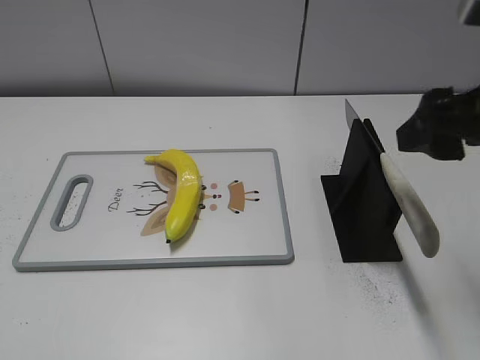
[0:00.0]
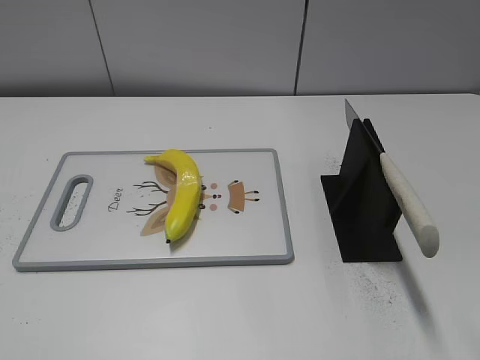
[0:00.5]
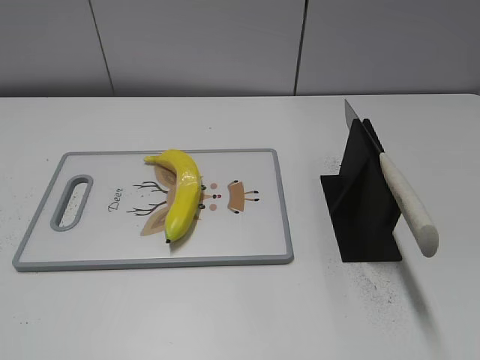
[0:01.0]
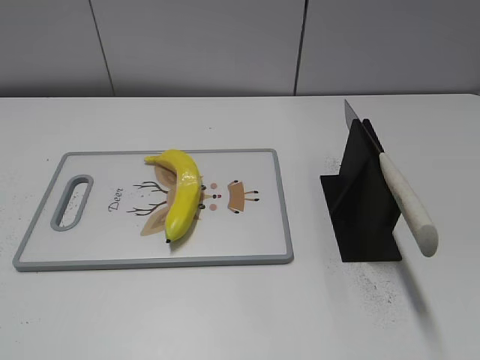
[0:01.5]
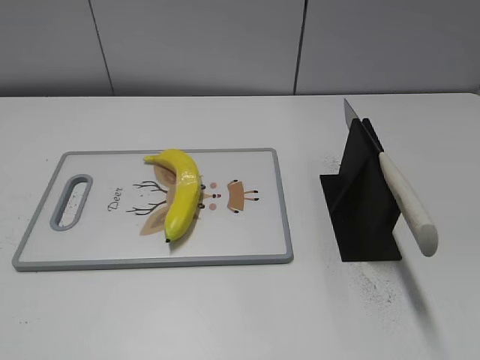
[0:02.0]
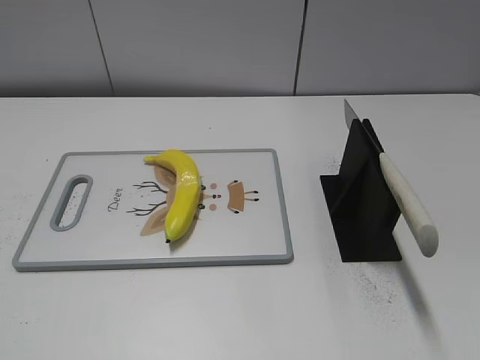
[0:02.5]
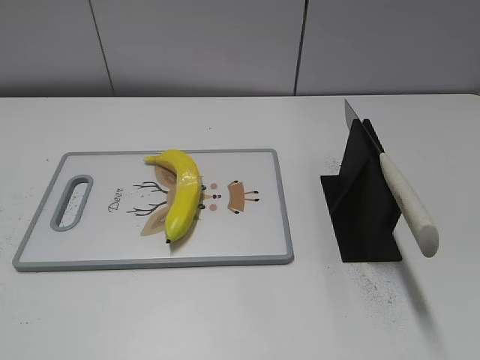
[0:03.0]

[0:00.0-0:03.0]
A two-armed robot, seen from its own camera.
Task of the whole recording: cut plastic banana.
Step, 0:00.0 to 0:03.0: Place the knife on the storage rack with your right hand.
0:00.0 to 0:01.5: The right gripper goes roughly 25 cm backward and to the right.
